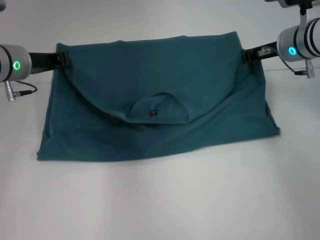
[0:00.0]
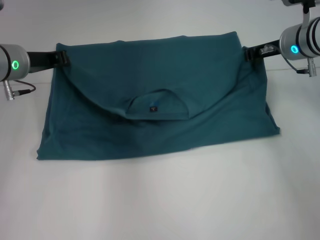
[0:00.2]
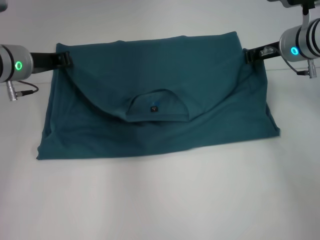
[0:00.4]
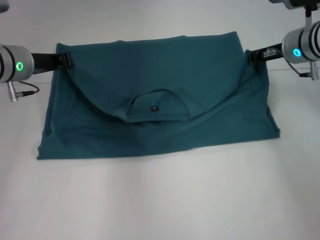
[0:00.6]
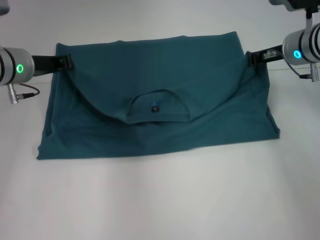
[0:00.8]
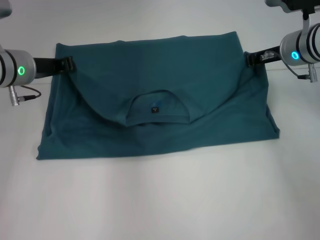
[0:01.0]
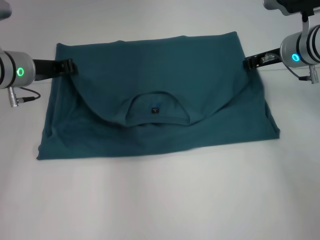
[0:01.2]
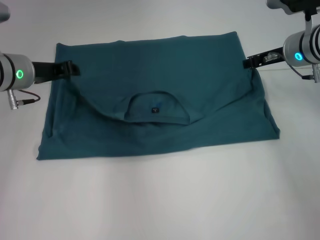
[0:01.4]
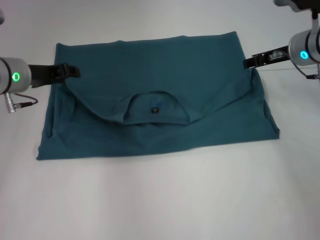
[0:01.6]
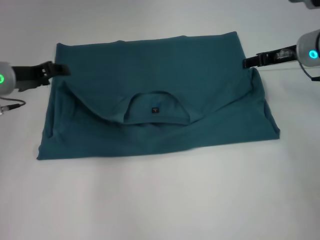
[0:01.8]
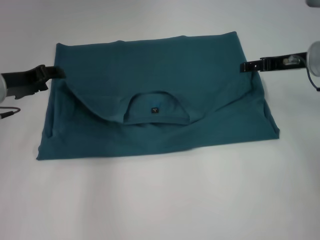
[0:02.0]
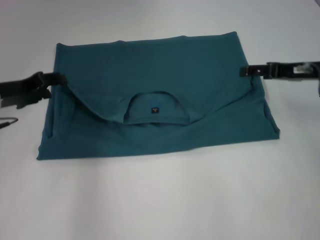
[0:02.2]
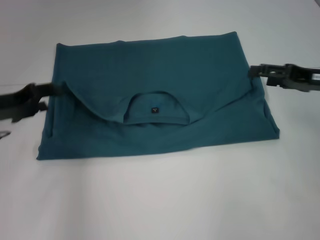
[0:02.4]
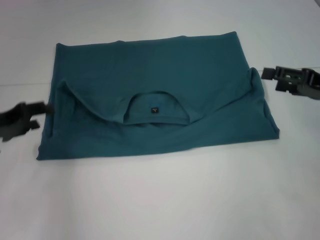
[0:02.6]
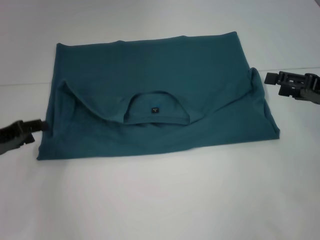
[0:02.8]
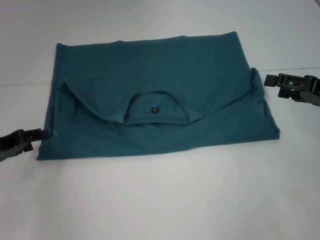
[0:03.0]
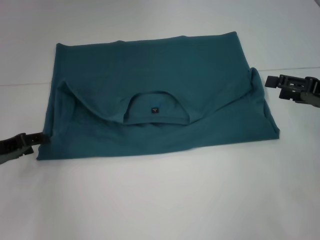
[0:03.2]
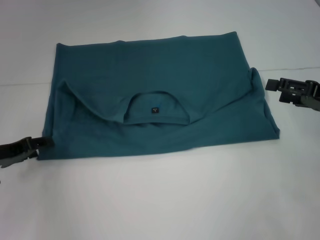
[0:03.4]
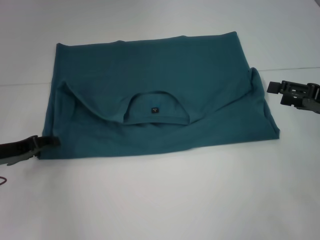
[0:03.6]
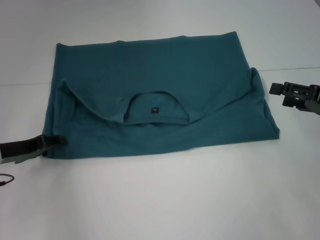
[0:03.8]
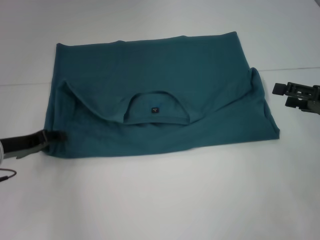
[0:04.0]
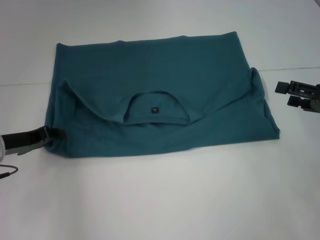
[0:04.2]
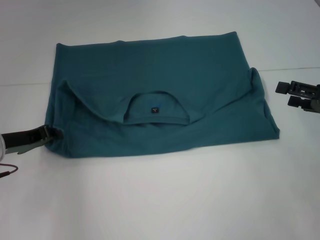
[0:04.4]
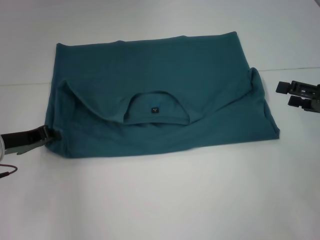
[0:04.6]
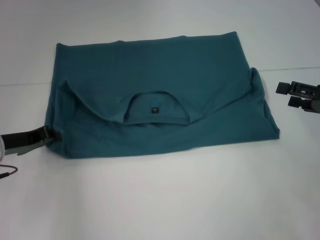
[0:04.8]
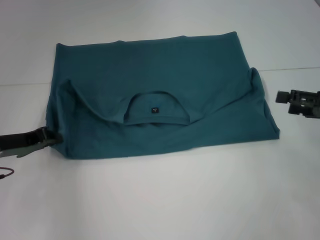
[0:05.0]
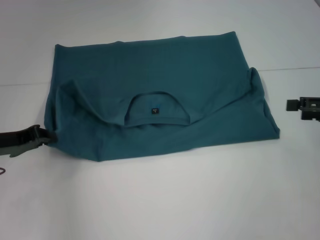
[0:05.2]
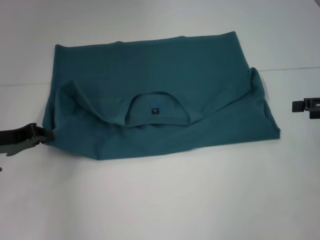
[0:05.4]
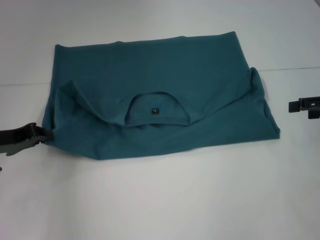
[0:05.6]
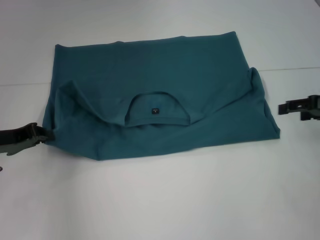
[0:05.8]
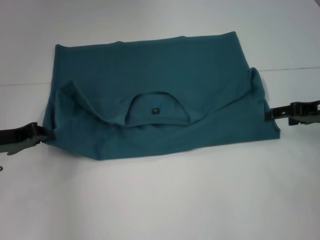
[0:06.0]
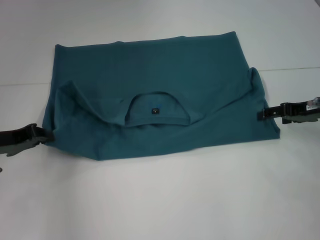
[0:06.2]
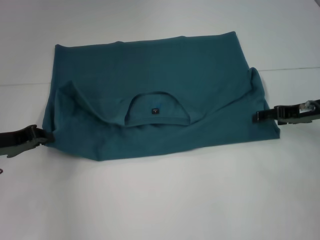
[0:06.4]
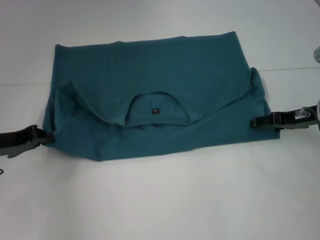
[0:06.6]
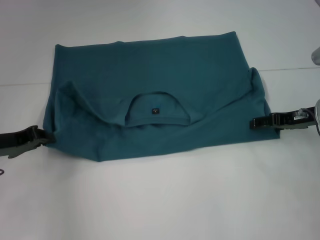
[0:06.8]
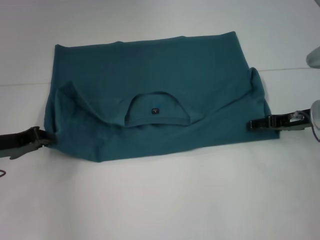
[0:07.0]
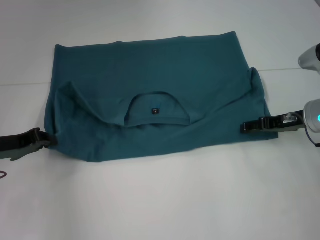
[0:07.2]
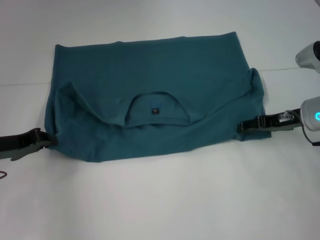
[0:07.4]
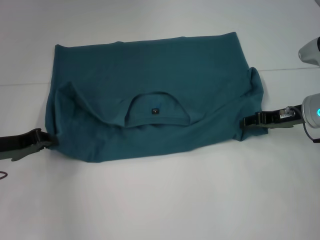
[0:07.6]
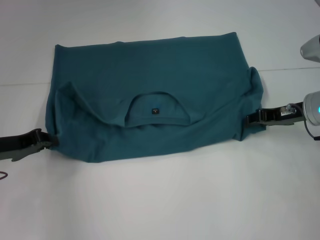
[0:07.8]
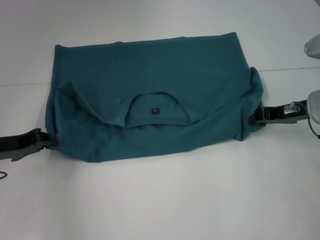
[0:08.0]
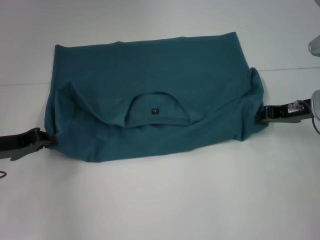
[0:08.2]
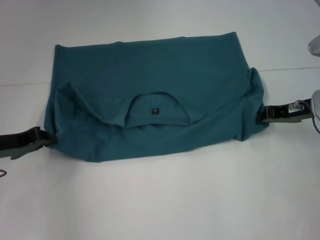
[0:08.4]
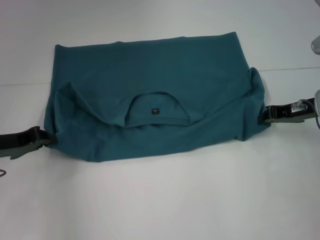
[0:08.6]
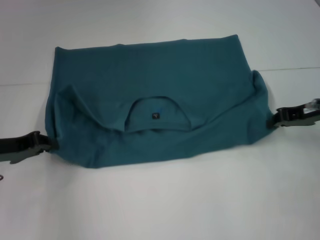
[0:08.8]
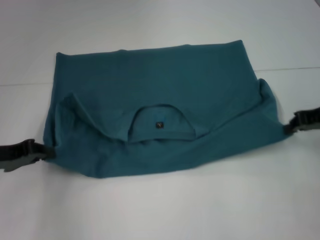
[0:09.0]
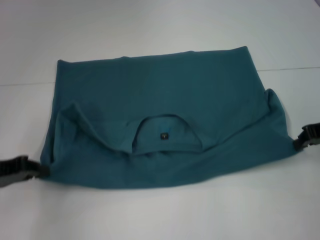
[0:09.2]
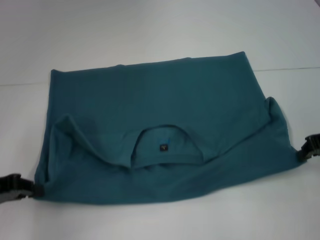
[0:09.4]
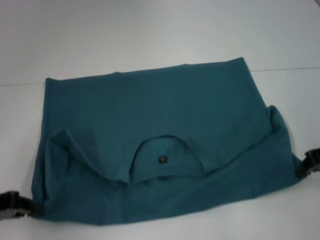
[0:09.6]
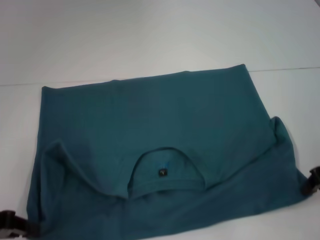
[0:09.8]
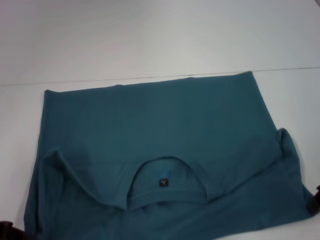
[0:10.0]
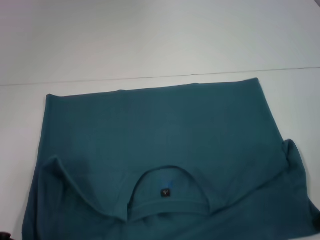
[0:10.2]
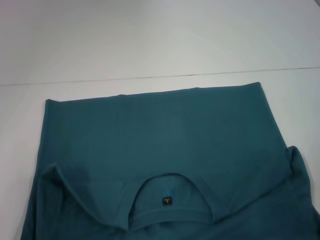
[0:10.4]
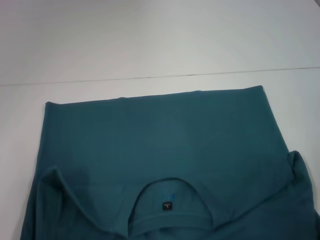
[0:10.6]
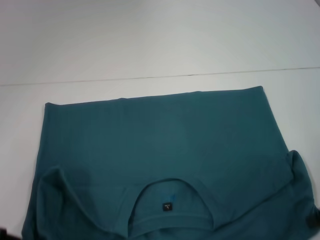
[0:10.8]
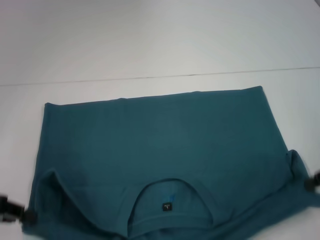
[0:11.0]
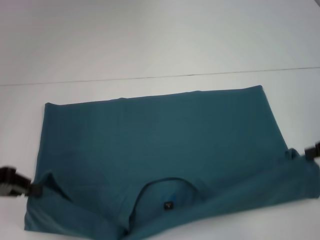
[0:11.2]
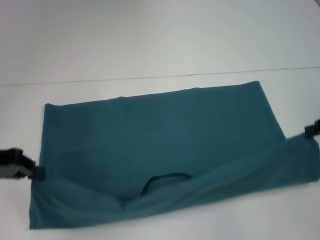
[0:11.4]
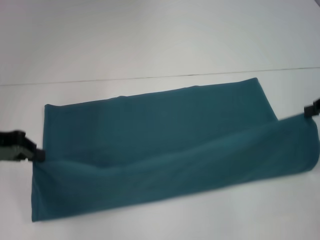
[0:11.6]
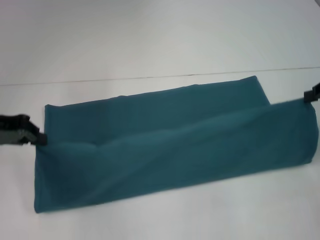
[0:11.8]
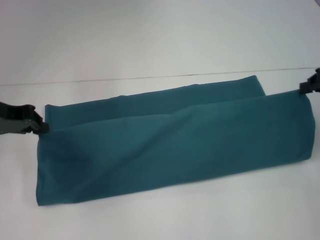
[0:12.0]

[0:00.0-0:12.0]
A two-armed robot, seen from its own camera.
Step, 0:02.0 to 0:10.2: Pull the clothes with your left hand.
Step, 0:02.0 to 0:10.2: Pull the clothes with your right hand.
0:00.0 to 0:01.6: The right gripper opens up.
0:01.6 to 0:03.0: The right gripper heads backward and to the right, covering roughly 15 cm, and opens up; the left gripper moves backward, to the left and downward, roughly 15 cm.
0:03.0 to 0:04.4: The grippers stay close to where they were, moving slightly.
0:04.4 to 0:06.0: The right gripper goes approximately 5 cm forward.
0:06.0 to 0:07.6: The right gripper goes about 5 cm to the left.
0:07.6 to 0:09.0: The right gripper moves upward, roughly 5 cm, and closes its fingers.
0:09.0 to 0:10.4: The two grippers go about 10 cm backward.
0:10.4 to 0:12.0: The grippers both shift forward and upward by approximately 15 cm.

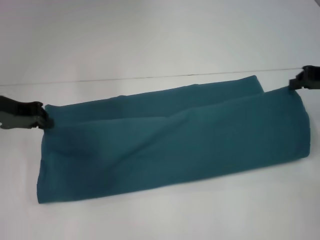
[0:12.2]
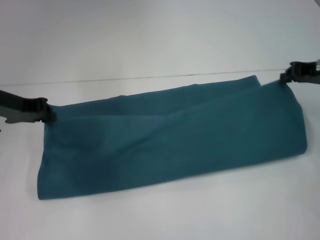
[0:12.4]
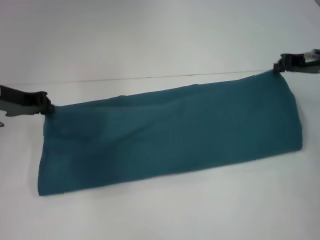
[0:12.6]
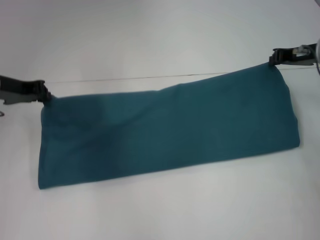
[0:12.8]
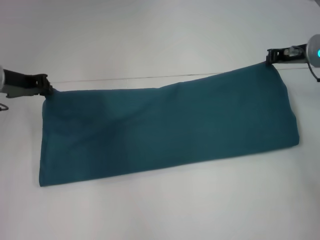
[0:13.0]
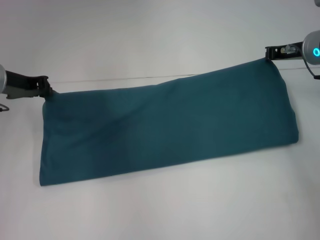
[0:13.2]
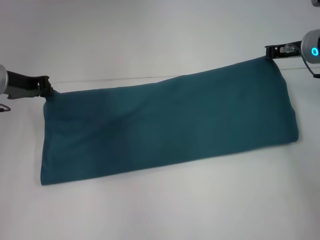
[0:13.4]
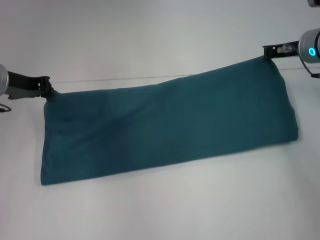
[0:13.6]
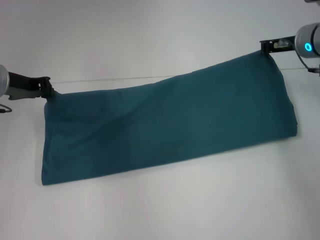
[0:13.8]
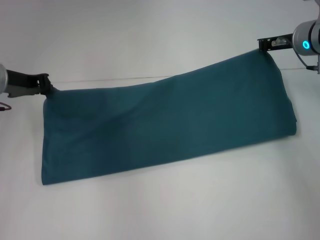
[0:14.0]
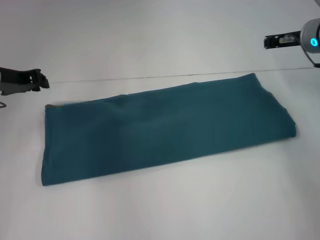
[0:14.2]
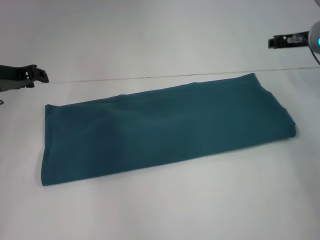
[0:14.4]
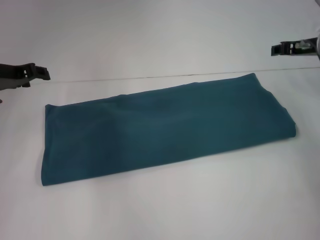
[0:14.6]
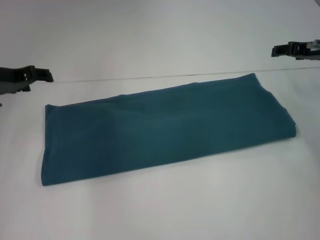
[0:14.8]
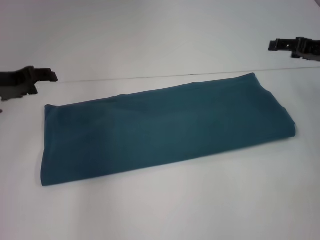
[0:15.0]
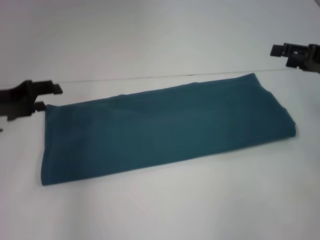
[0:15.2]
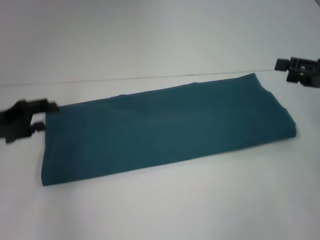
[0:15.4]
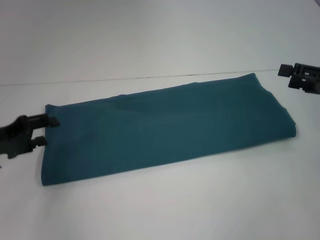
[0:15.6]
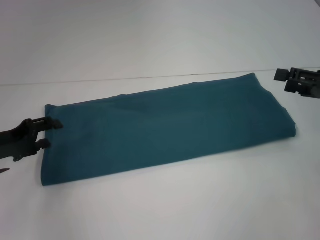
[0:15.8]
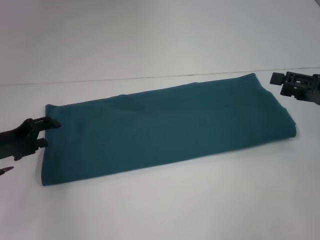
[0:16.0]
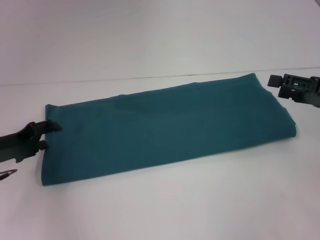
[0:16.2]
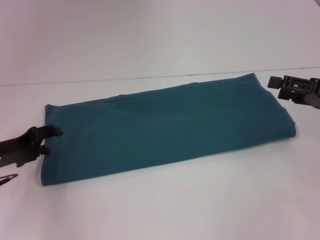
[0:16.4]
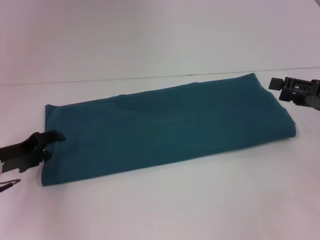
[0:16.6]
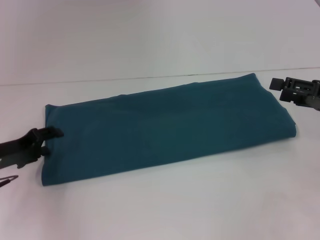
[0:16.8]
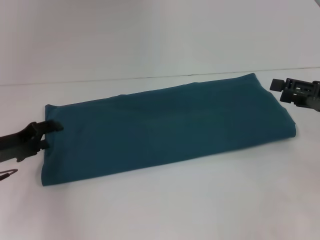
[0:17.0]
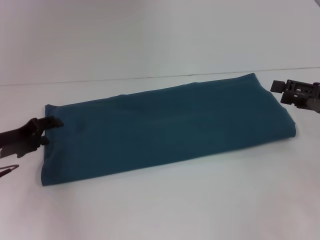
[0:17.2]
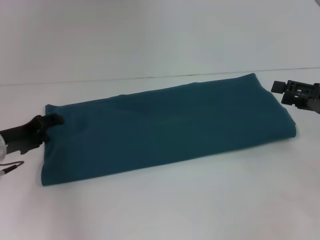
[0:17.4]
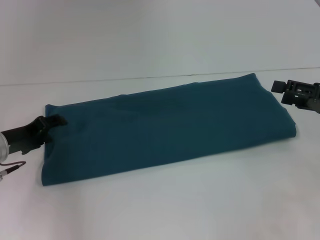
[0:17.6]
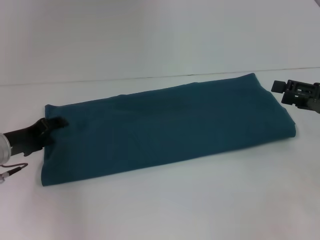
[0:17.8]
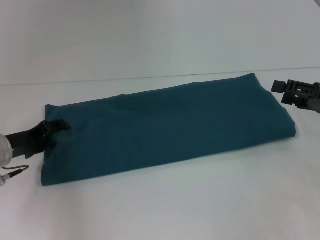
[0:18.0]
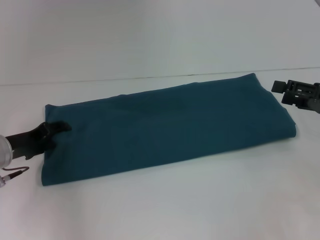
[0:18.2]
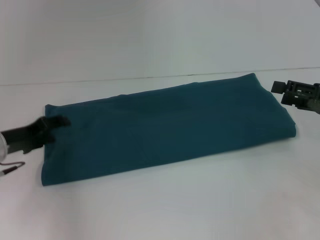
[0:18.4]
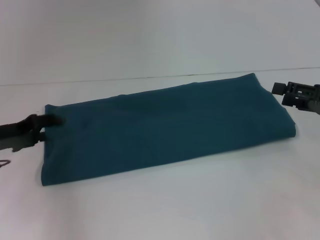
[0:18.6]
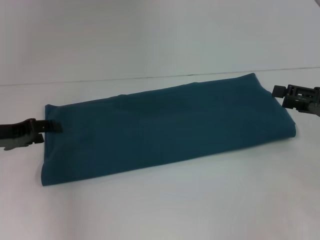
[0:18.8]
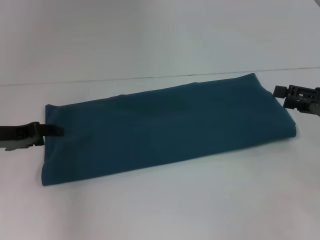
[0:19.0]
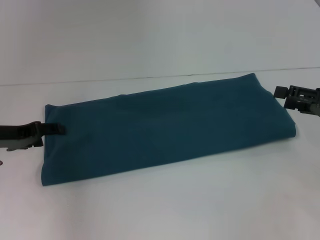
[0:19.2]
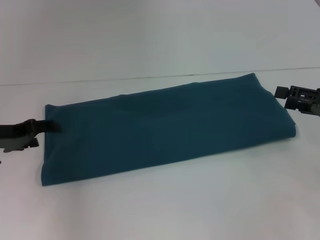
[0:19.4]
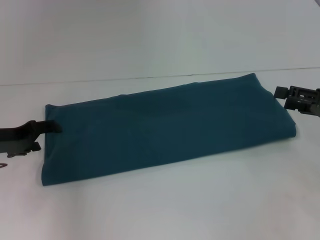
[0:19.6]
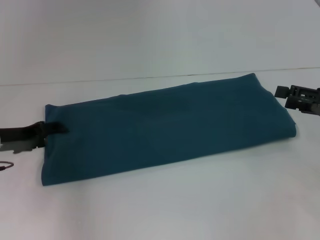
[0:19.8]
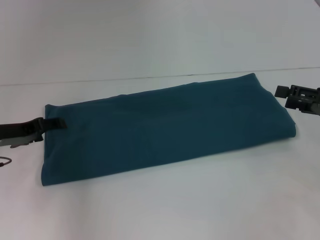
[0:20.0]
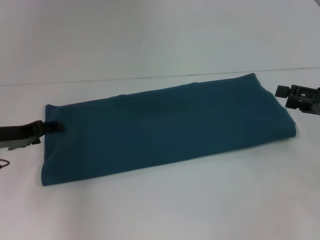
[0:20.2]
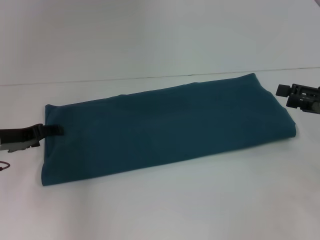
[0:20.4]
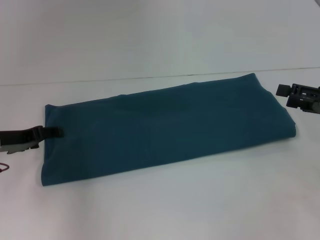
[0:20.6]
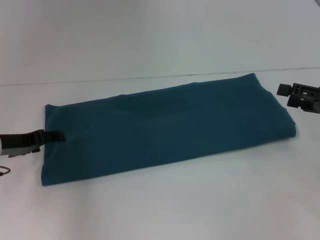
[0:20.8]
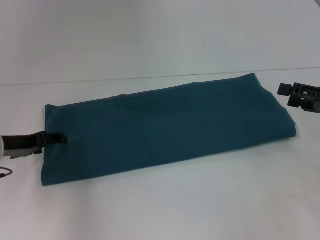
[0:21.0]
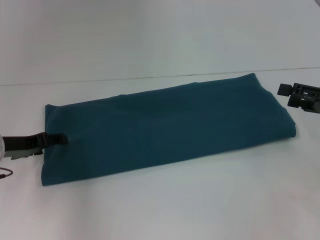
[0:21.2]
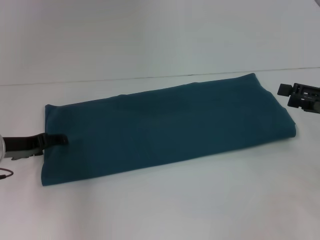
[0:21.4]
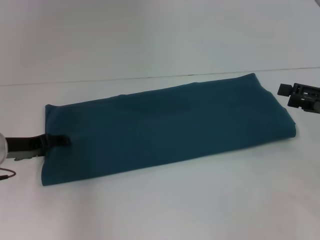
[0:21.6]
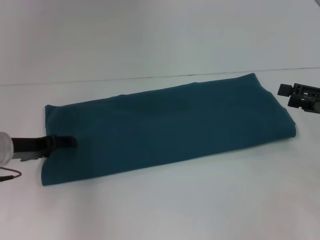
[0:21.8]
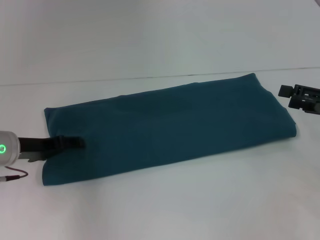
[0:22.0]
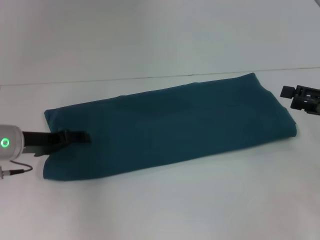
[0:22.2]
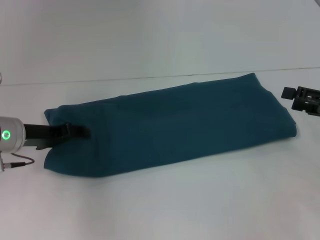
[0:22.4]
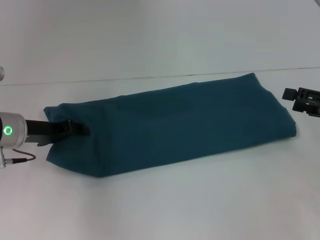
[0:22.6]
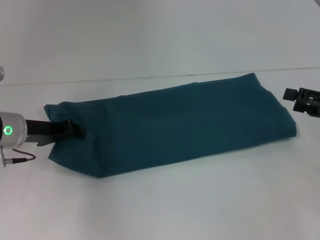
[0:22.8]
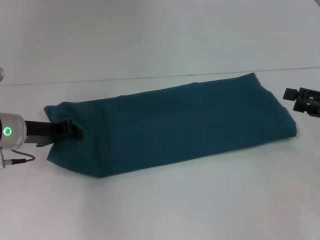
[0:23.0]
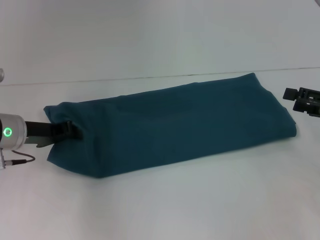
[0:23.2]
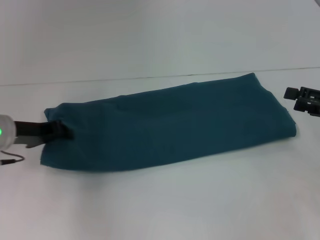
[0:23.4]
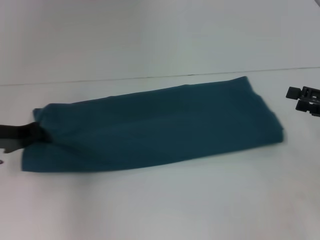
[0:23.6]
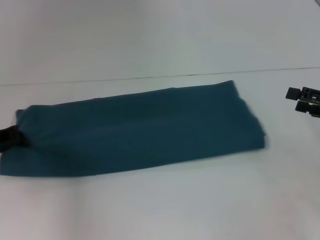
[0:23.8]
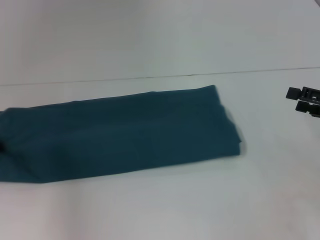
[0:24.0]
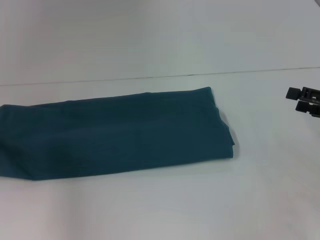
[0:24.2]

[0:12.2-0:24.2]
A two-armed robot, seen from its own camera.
Step, 0:12.2 to 0:14.4: Fold the clothes to the right.
0:12.2 to 0:13.8: The right gripper heads forward and to the left, covering roughly 10 cm.
0:13.8 to 0:15.2: The right gripper travels backward and to the right by about 15 cm, and opens its fingers, while the left gripper is displaced backward by some 5 cm, and opens.
0:15.2 to 0:16.6: The left gripper shifts some 10 cm downward; the right gripper shifts by some 5 cm.
0:16.6 to 0:18.2: The grippers make only small movements.
0:19.8 to 0:22.6: The grippers stay close to where they were, moving slightly.
0:22.6 to 0:24.2: The left gripper goes about 10 cm to the left, and closes.
